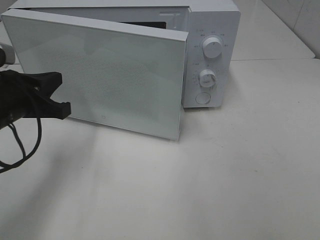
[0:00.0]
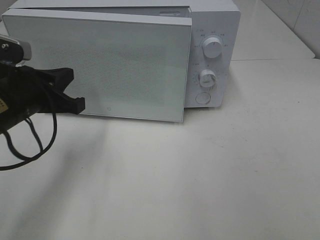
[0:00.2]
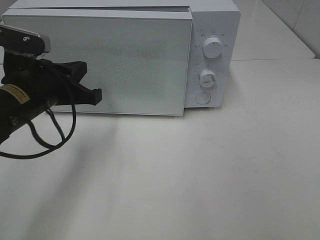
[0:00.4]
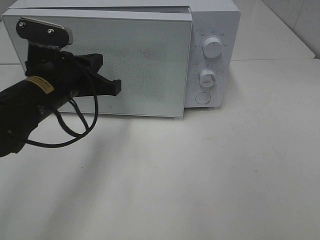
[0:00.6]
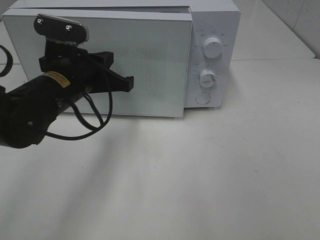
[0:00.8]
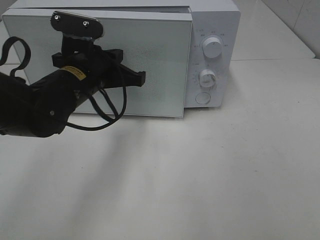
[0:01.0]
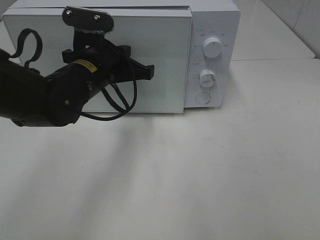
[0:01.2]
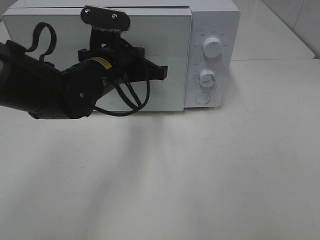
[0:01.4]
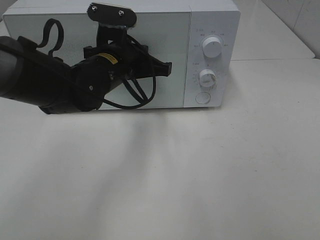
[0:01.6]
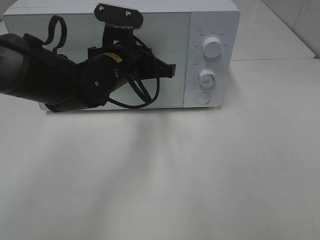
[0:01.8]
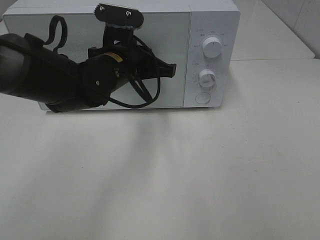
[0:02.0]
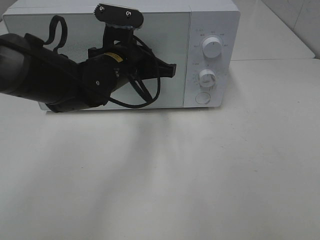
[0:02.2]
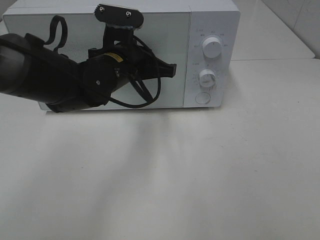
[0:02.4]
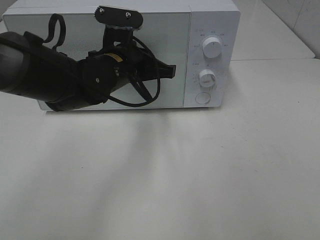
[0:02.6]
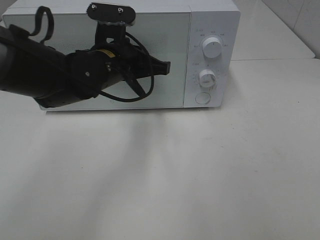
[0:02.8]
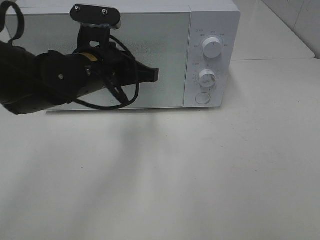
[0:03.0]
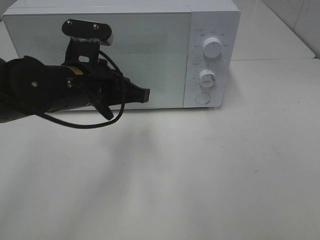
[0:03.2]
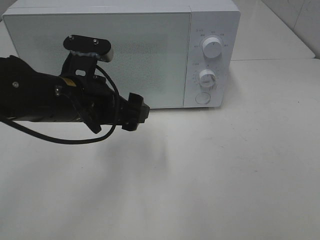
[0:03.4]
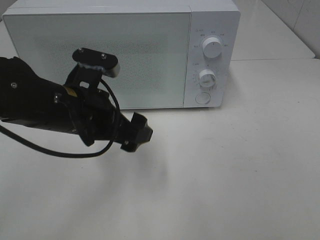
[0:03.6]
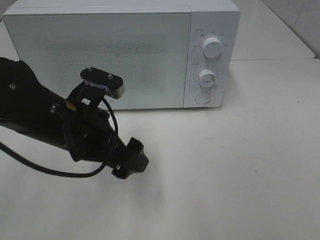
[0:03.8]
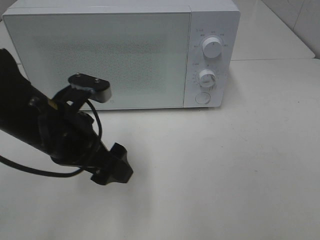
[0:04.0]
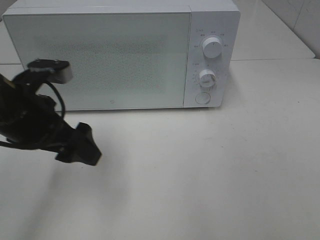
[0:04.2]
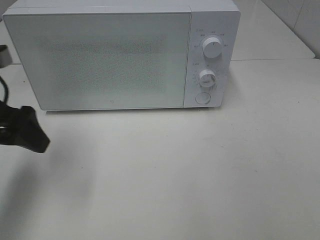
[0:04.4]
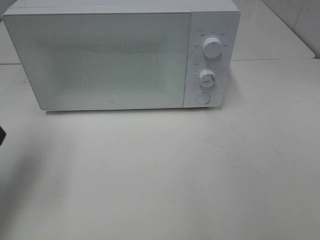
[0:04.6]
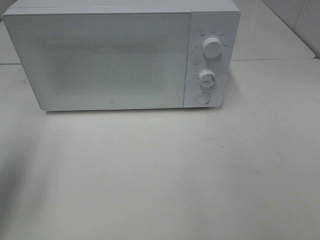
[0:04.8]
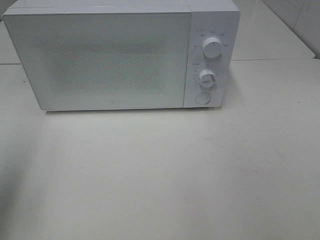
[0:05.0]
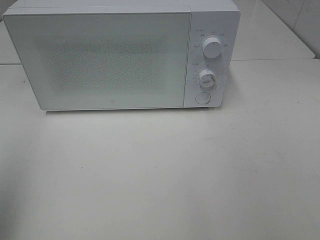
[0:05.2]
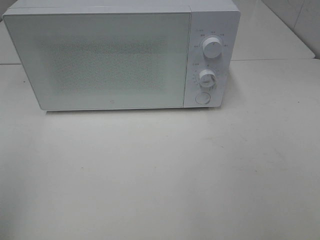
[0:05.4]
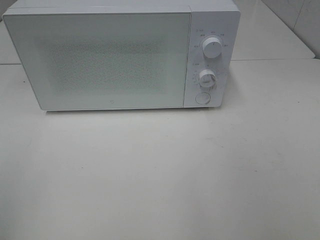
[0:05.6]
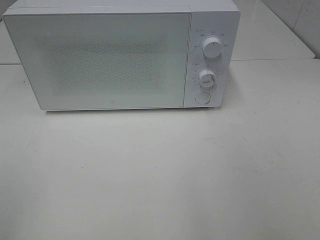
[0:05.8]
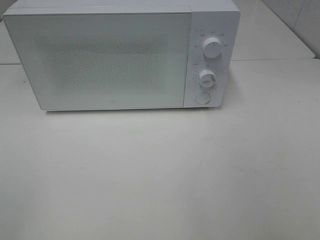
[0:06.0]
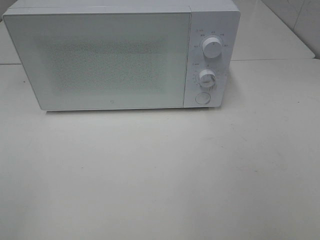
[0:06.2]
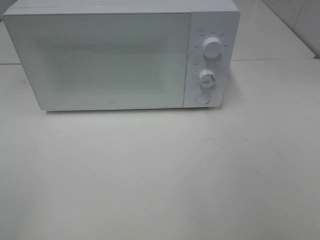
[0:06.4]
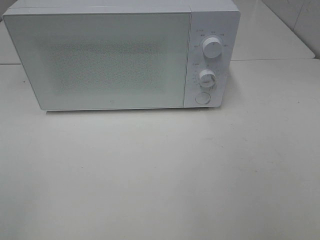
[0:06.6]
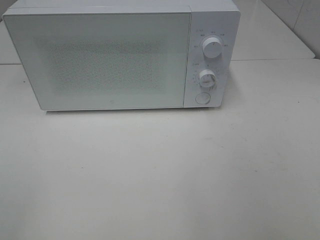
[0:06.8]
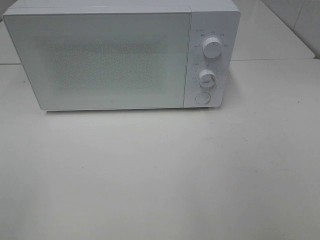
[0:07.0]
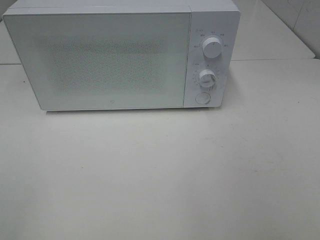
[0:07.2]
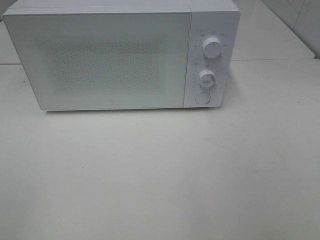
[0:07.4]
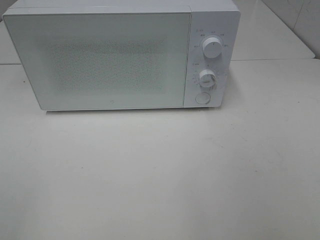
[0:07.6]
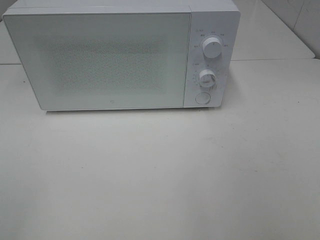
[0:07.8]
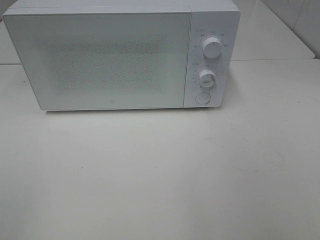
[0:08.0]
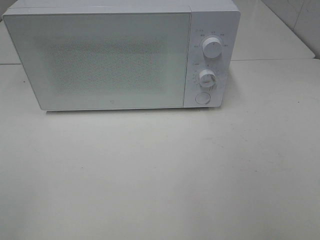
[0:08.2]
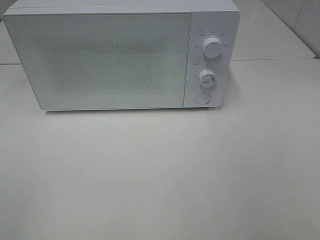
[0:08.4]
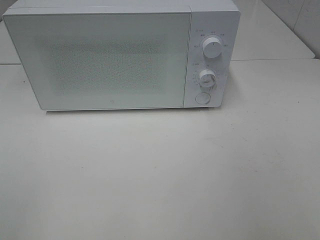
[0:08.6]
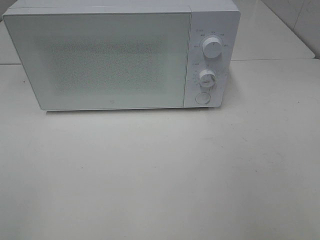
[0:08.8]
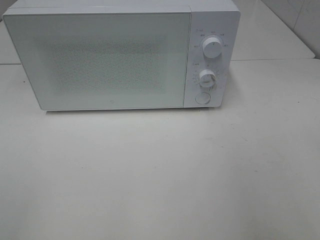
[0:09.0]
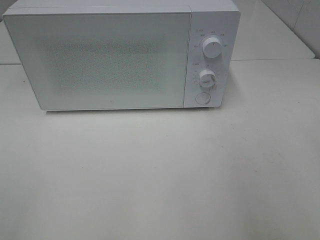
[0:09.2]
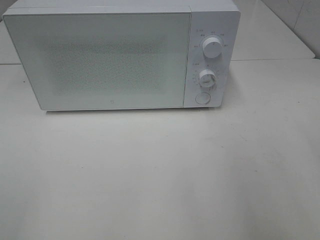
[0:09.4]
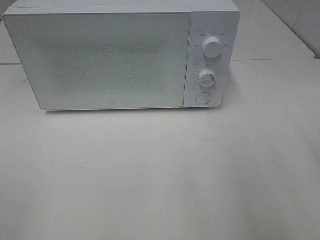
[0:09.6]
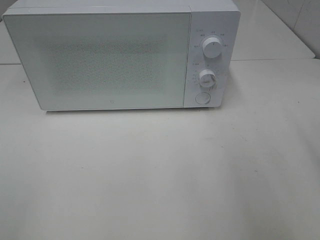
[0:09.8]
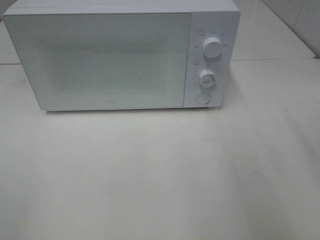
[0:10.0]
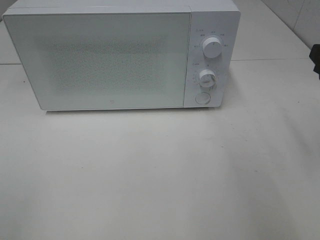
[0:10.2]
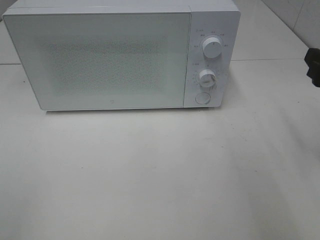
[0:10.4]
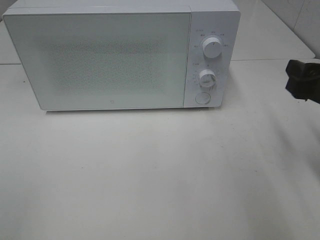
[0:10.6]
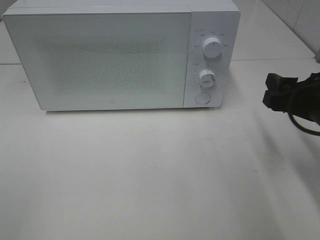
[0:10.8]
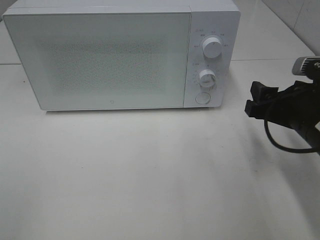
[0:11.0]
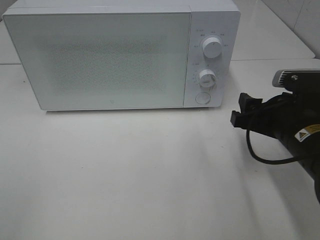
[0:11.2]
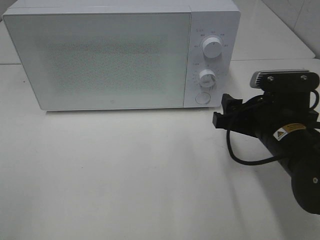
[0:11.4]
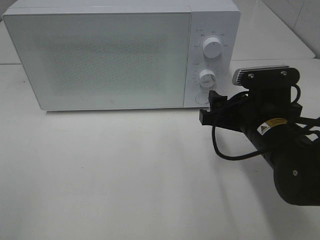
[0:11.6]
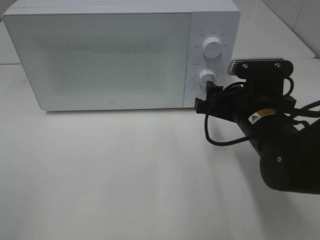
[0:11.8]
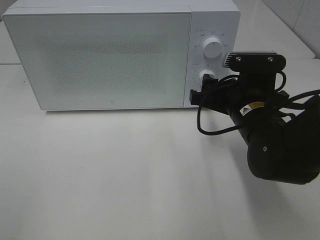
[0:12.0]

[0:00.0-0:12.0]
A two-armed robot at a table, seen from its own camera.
Task of the whole recording: Heat Sandwich.
Step, 0:00.0 to 0:03.4: Left hand: close the microwave door.
0:00.0 to 0:01.6: The left gripper moves to the right and forward, some 15 cm.
0:01.6 to 0:03.0: The grippers move only a little.
0:03.0 to 0:04.4: The left gripper moves to the left and backward, some 15 cm, and opens.
0:04.4 to 0:06.0: The left gripper heads backward, covering about 25 cm.
0:06.0 to 0:07.6: The two grippers keep their place.
0:09.0 to 0:10.4: The right gripper travels forward and downward by roughly 15 cm.
0:10.4 to 0:12.0: The right gripper goes some 15 cm to the left, downward and forward.

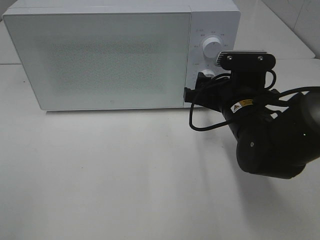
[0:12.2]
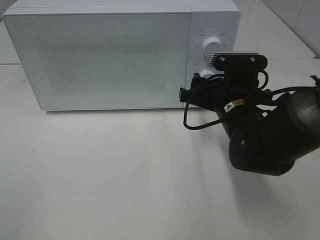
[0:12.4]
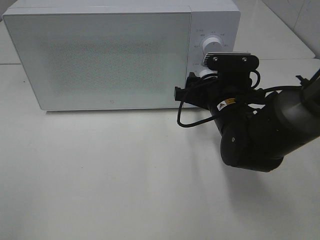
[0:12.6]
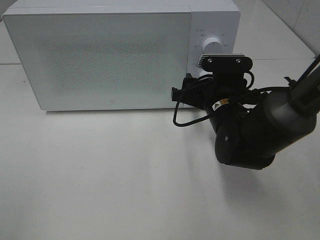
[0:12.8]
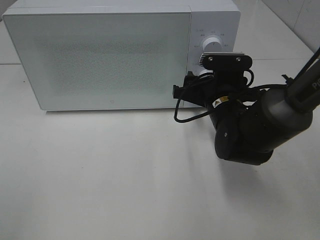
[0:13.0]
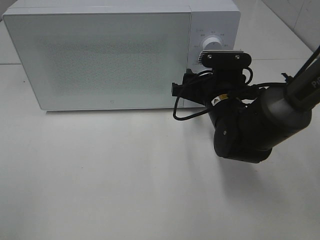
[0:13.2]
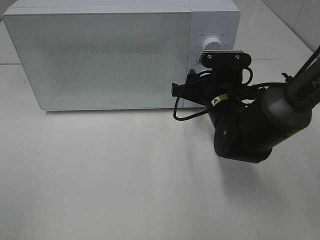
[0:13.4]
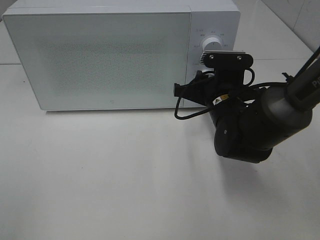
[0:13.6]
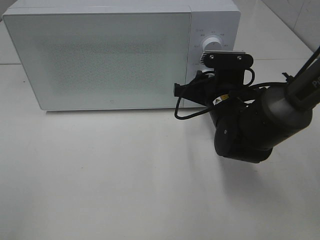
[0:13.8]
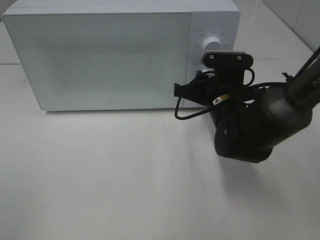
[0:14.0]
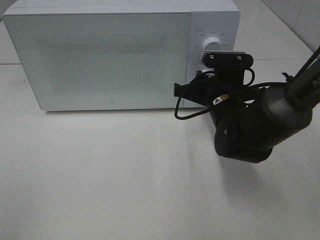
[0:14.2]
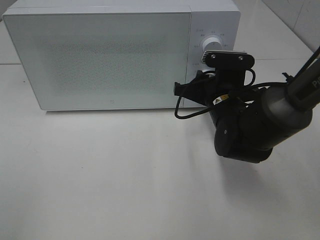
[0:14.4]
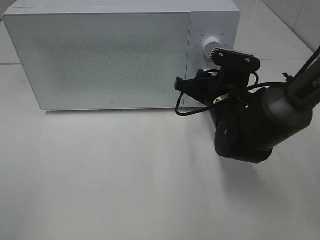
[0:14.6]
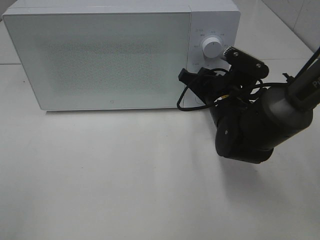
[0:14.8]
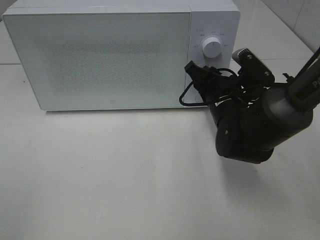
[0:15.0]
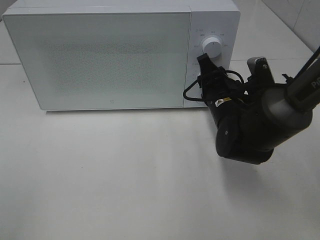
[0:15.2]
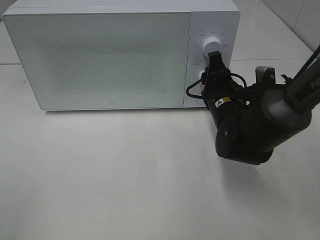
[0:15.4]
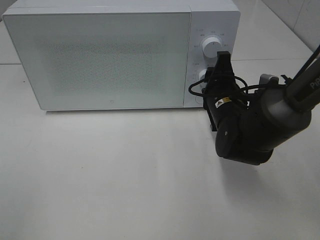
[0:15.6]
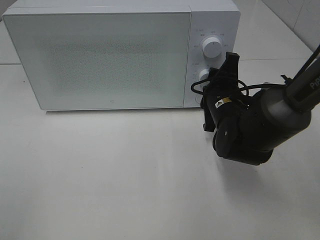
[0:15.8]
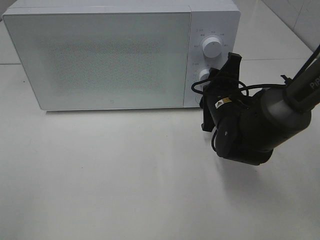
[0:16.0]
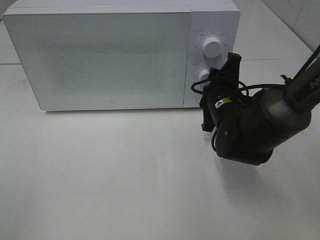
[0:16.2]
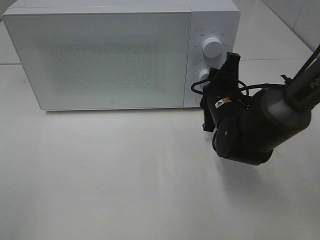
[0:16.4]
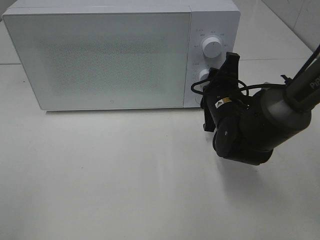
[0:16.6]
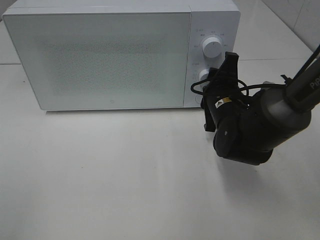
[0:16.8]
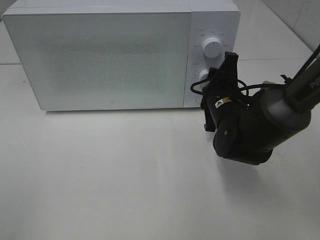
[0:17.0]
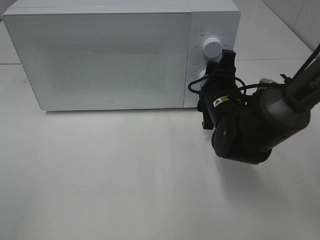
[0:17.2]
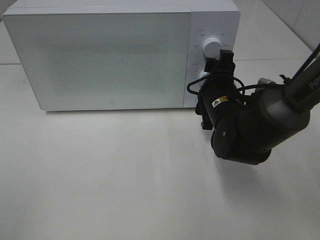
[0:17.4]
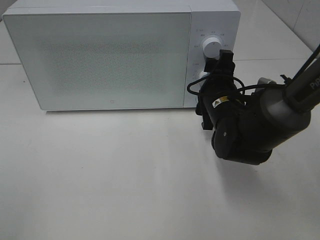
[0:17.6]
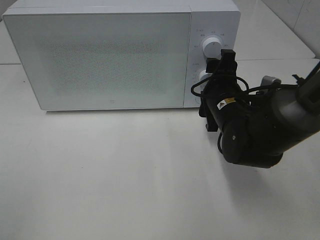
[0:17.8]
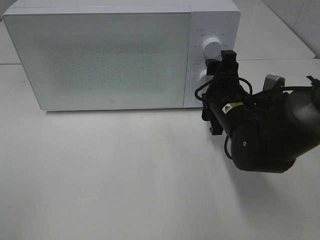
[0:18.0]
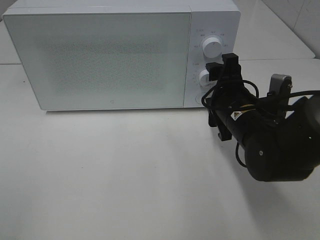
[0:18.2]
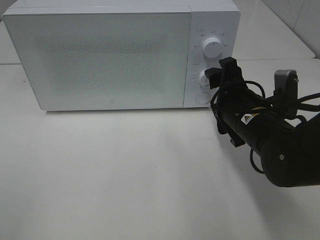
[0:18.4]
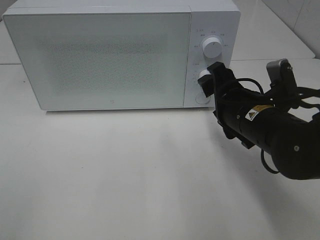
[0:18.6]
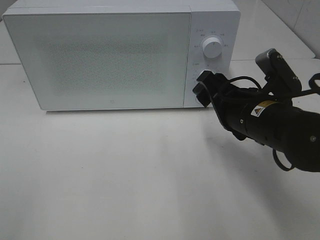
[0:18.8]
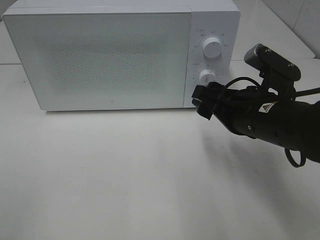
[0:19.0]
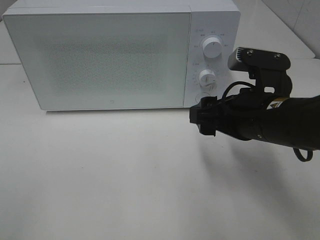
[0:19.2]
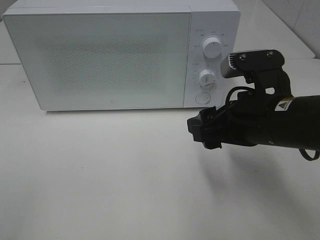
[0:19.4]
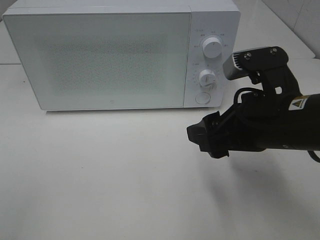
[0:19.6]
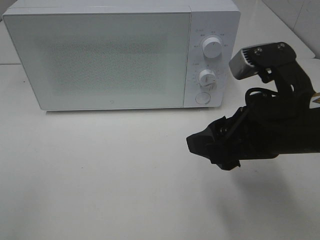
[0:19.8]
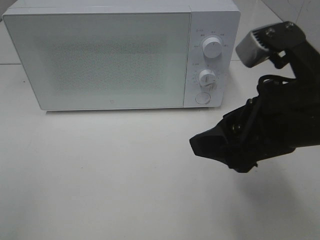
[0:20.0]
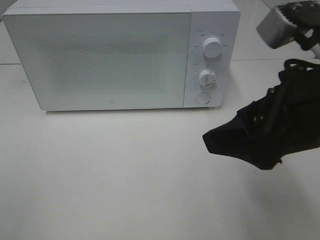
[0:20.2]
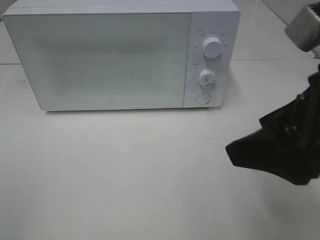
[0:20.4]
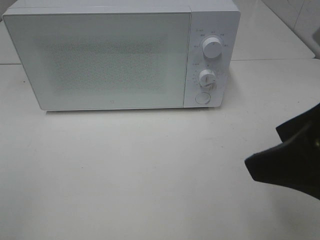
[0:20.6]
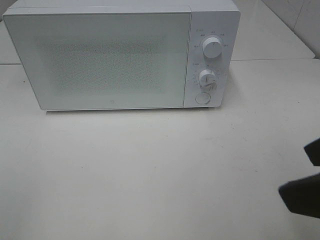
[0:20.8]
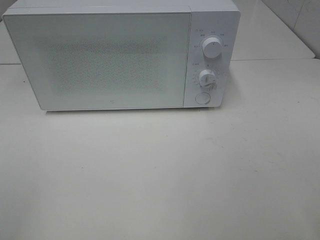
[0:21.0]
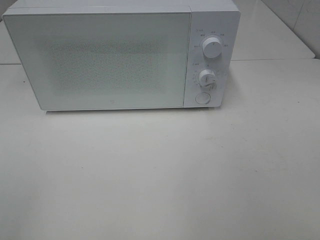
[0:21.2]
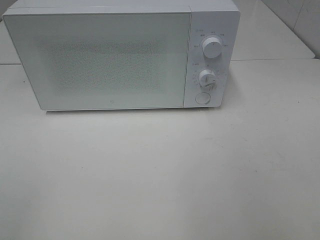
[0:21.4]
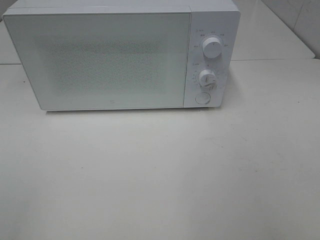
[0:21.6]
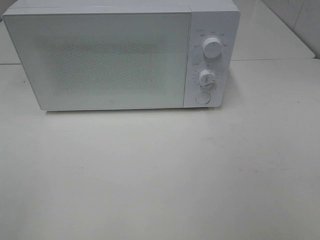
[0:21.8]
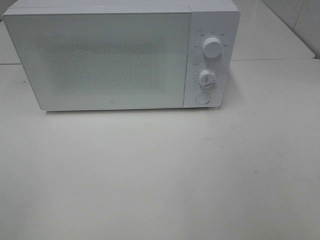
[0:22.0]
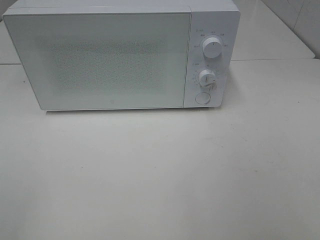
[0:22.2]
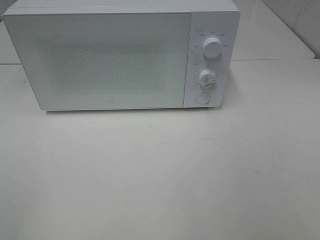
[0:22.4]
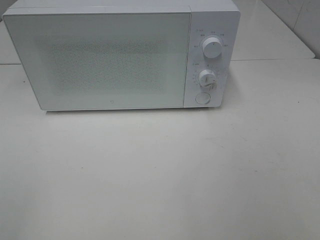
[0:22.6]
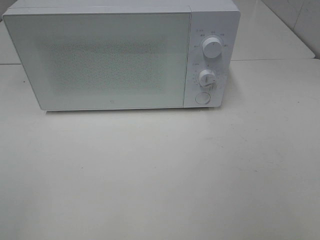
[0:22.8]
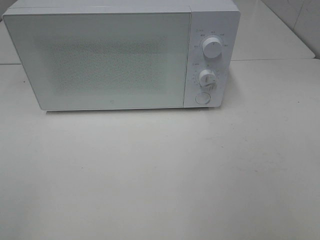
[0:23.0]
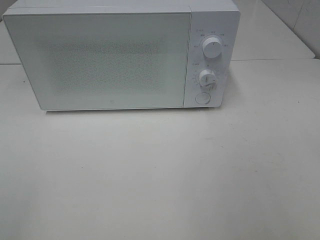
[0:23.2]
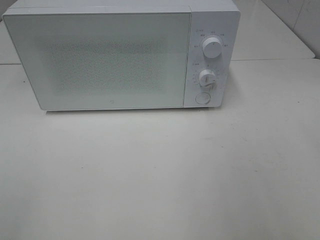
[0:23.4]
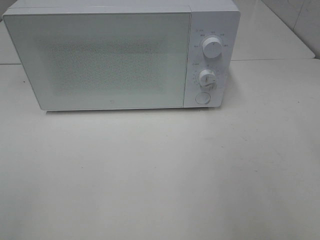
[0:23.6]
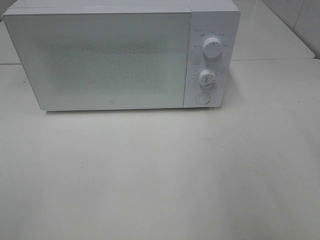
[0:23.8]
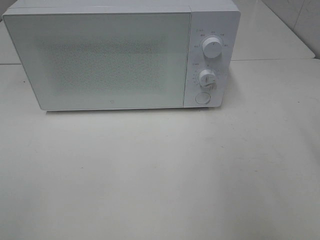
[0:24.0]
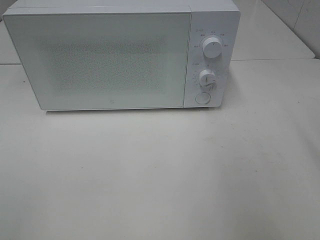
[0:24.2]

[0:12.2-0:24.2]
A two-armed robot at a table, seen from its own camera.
Task of the whole recording: Heat Sandwich.
Step, 0:12.2 to 0:18.0: Right hand: twist timer button.
0:12.2 to 0:13.8: The right gripper closes its fingers.
0:16.6 to 0:18.2: The right gripper opens up.
0:18.2 to 0:19.8: The right gripper goes approximately 15 cm backward and upward.
0:19.8 to 0:21.2: The right gripper heads backward, to the right and upward, covering roughly 20 cm.
